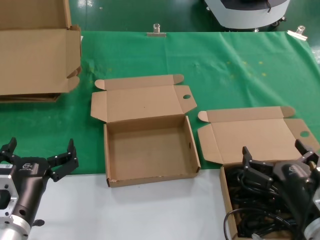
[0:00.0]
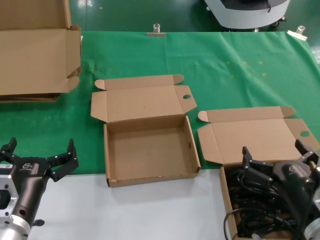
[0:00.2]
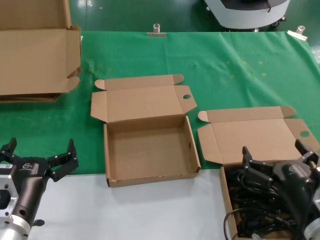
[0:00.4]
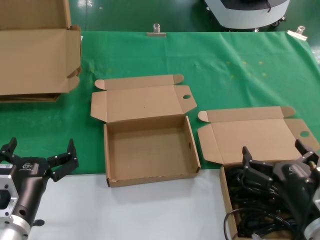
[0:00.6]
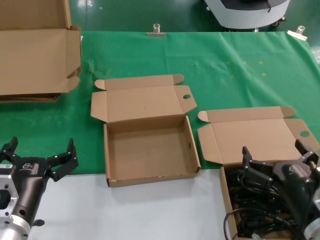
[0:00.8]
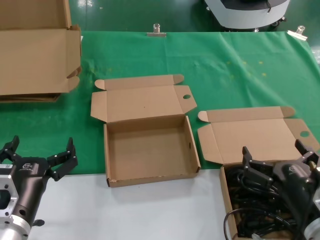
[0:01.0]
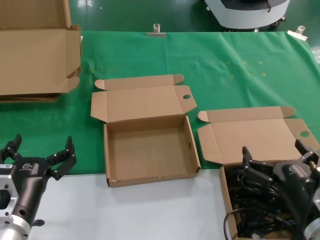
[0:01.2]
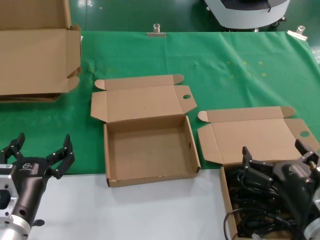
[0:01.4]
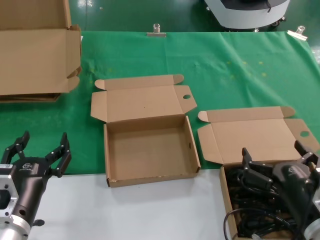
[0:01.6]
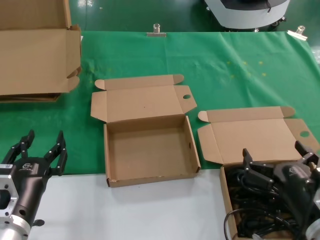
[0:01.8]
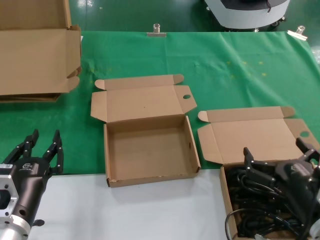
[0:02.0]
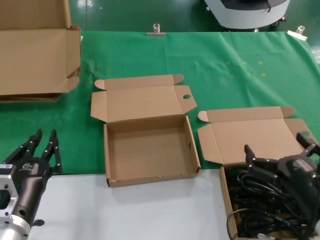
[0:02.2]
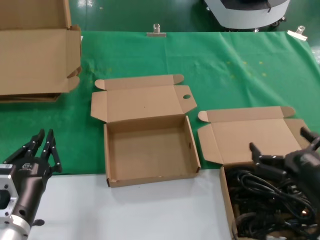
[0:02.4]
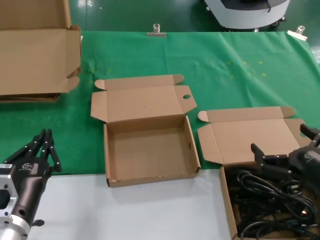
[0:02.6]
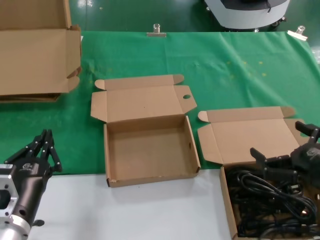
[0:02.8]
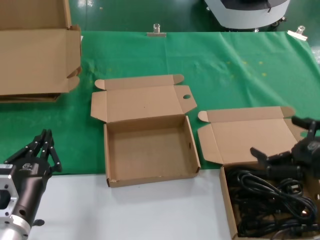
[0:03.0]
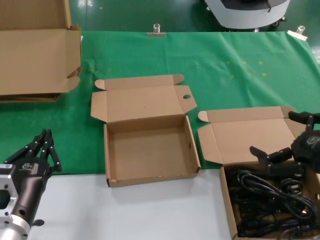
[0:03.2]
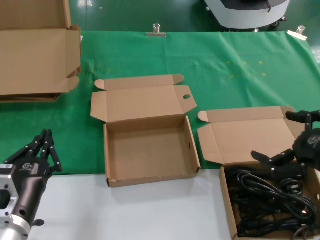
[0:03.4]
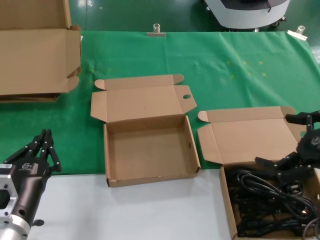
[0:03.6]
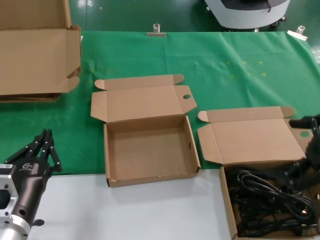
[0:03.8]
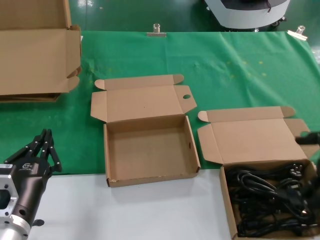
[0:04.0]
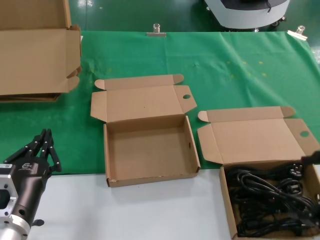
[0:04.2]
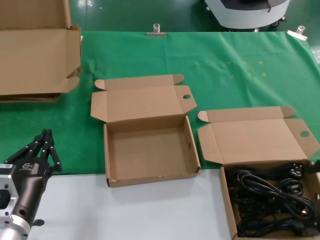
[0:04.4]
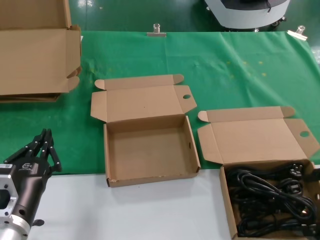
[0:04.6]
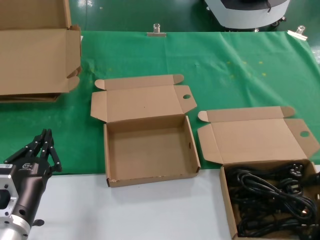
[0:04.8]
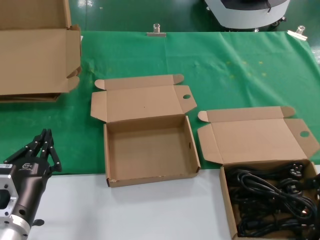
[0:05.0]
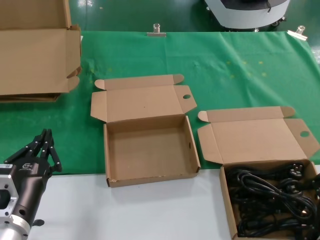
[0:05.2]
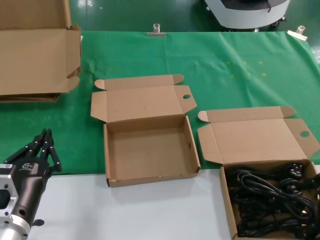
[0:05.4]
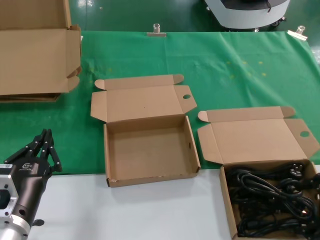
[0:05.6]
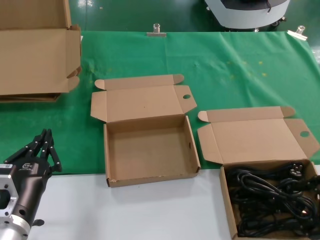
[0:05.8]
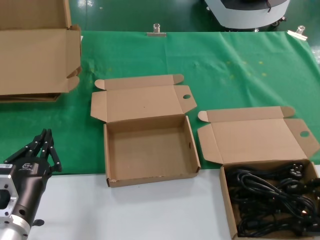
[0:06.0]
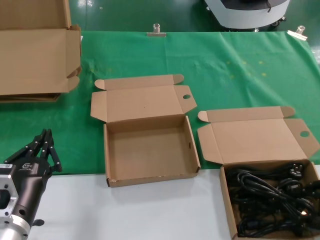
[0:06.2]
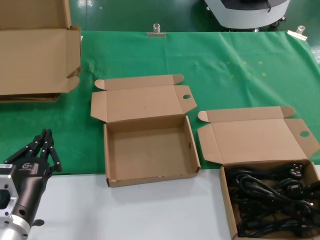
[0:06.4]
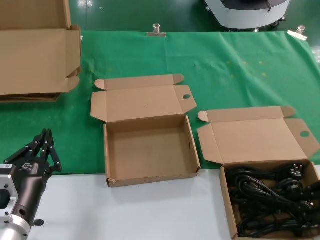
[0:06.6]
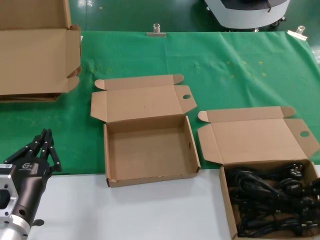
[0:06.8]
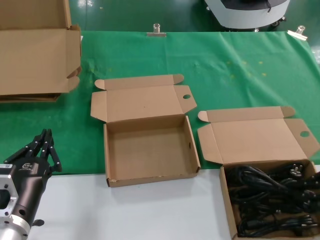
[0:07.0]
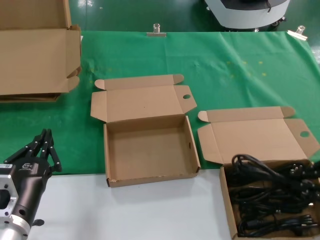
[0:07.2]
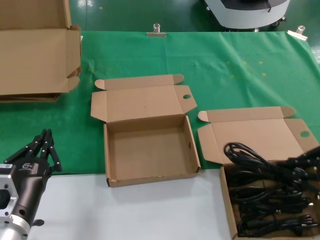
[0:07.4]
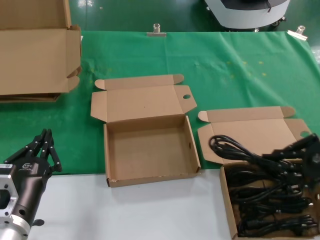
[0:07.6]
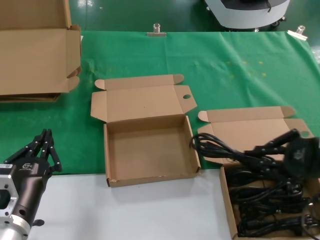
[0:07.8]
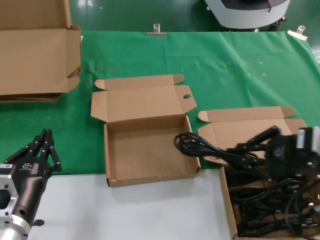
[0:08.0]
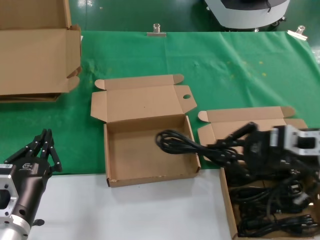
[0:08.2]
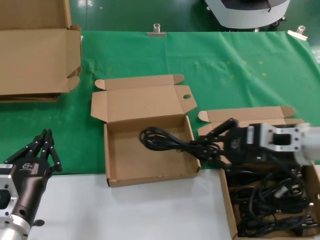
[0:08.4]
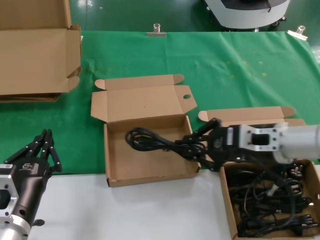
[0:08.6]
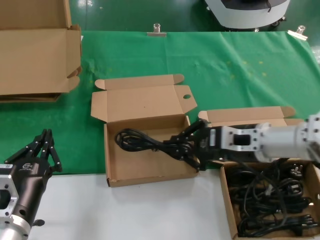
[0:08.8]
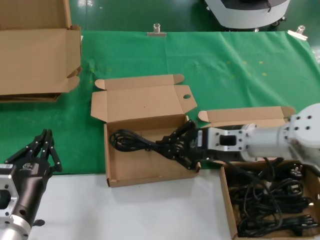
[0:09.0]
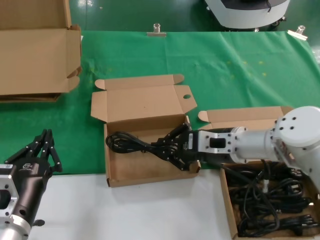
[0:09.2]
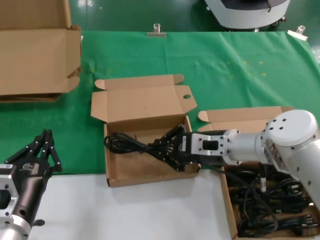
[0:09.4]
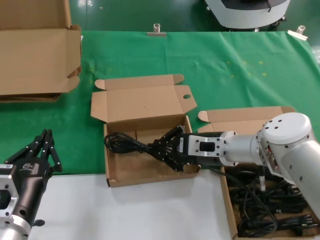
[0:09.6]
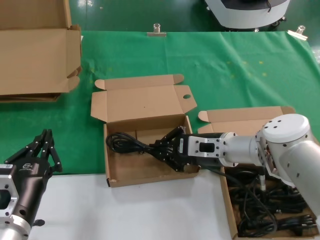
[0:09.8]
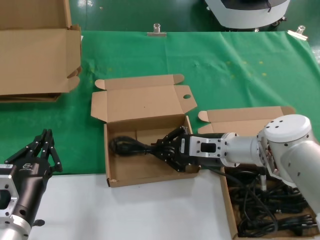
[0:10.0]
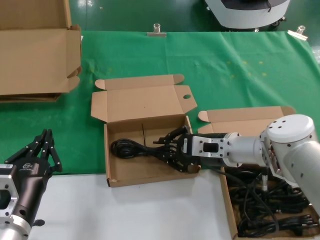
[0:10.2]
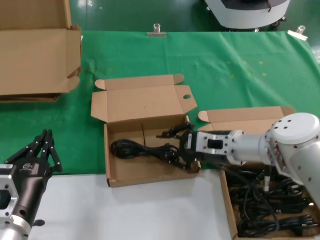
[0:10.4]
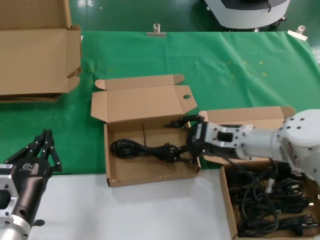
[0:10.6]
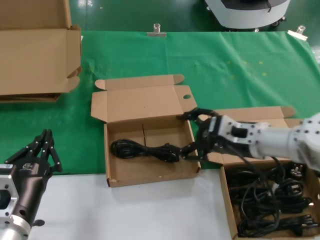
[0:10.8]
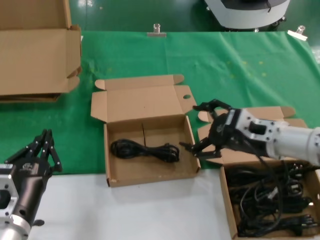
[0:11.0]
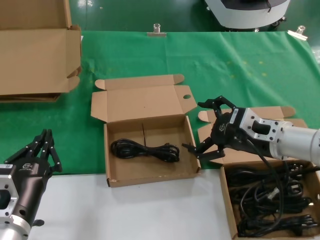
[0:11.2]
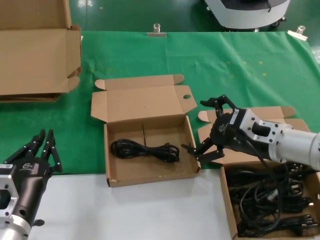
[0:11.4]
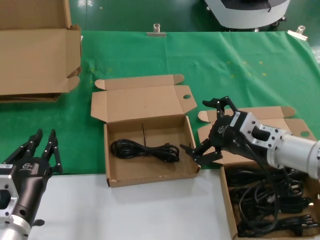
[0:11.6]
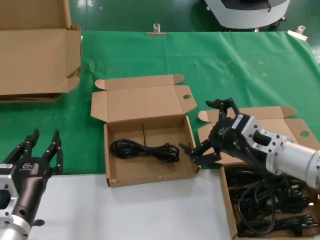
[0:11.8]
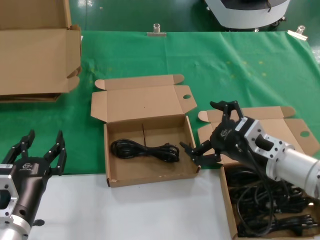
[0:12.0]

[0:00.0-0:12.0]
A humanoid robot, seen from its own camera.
Task of the whole recording: take the parts from the box containing them and put them into an empty box.
Step, 0:00.0 to 0:06.4: Grasp the data cable.
Step, 0:06.8 to 0:10.0: Place the data cable in the another box.
0:00.0 to 0:01.6: The two hands keep their place.
0:01.6 to 0:03.0: The right hand shifts about 15 cm upward and to the right.
0:03.0 to 0:04.4: The right hand heads to the right and upward, covering roughly 10 cm.
0:04.4 to 0:06.0: The right hand travels downward by some 10 cm.
0:06.0 to 0:07.6: The right hand moves upward, roughly 5 cm.
0:07.6 to 0:09.0: The right hand heads to the left and forward, covering roughly 25 cm.
0:09.0 to 0:10.4: The right hand shifts by roughly 5 cm.
0:10.4 to 0:12.0: The right hand is displaced backward and to the right by about 10 cm.

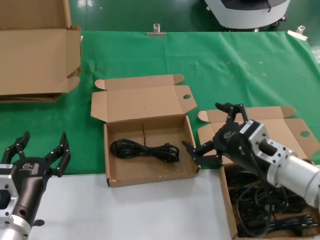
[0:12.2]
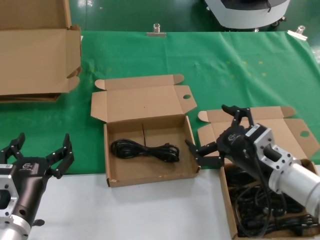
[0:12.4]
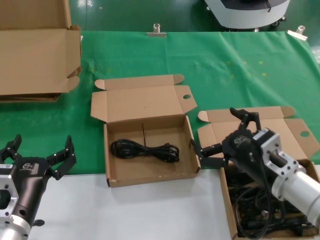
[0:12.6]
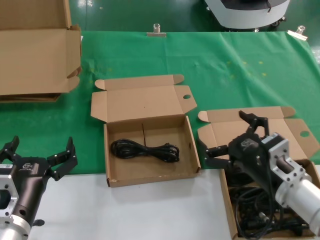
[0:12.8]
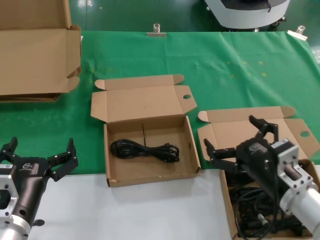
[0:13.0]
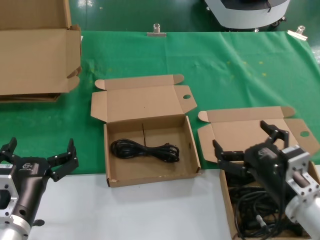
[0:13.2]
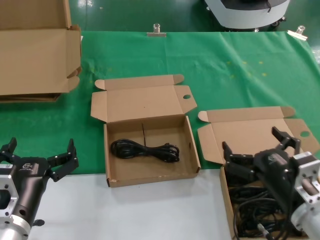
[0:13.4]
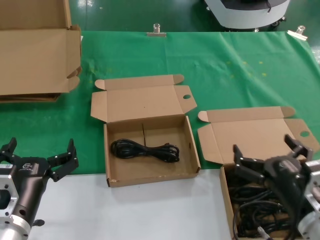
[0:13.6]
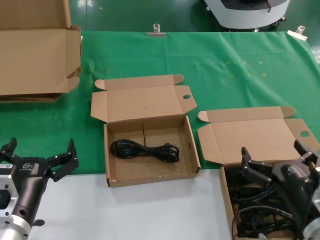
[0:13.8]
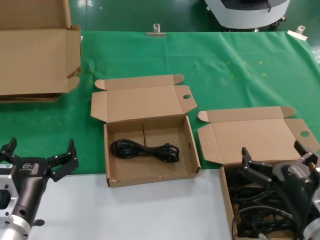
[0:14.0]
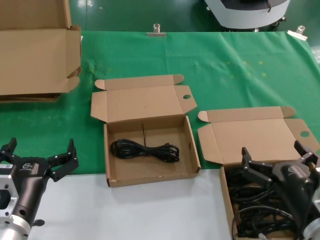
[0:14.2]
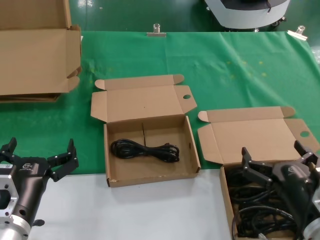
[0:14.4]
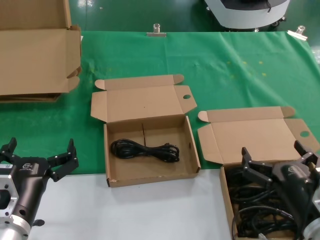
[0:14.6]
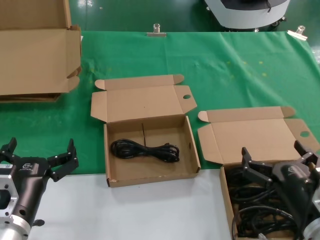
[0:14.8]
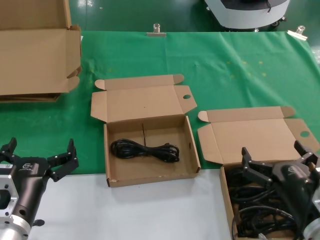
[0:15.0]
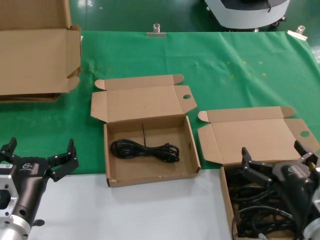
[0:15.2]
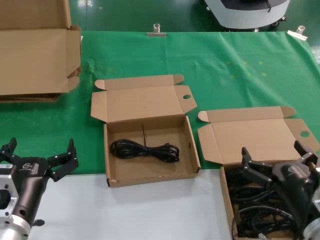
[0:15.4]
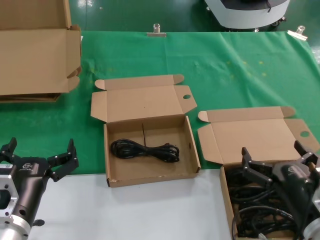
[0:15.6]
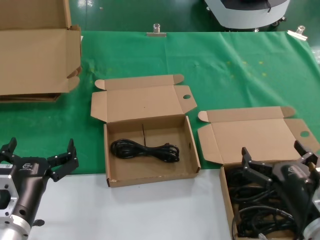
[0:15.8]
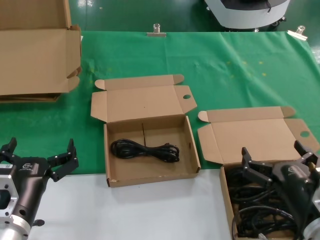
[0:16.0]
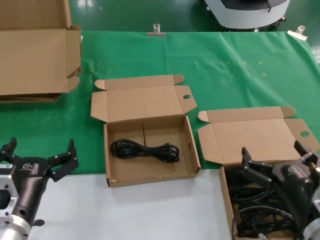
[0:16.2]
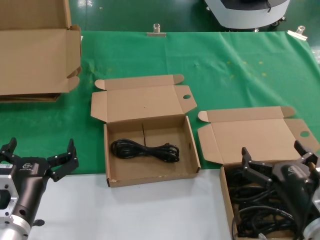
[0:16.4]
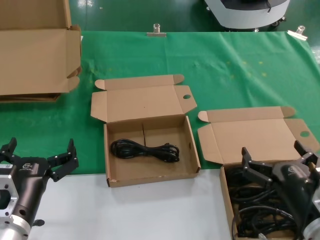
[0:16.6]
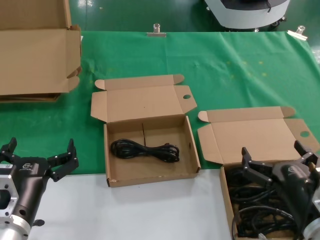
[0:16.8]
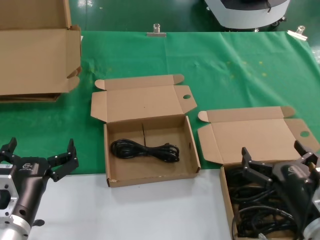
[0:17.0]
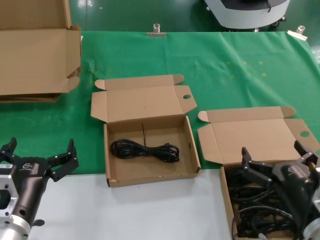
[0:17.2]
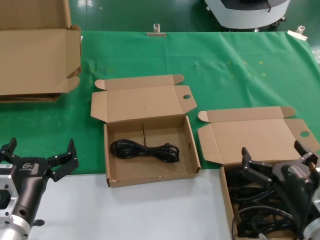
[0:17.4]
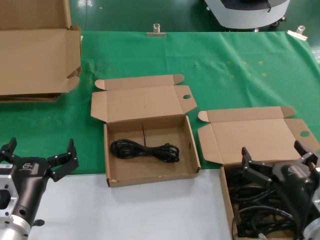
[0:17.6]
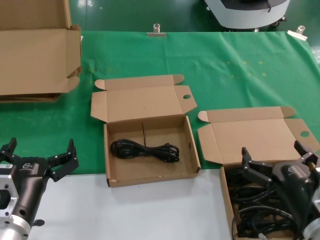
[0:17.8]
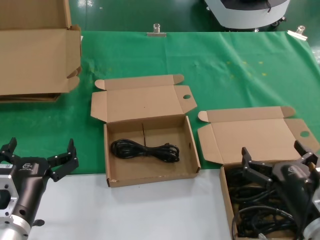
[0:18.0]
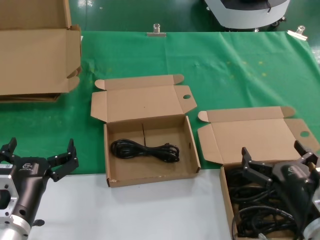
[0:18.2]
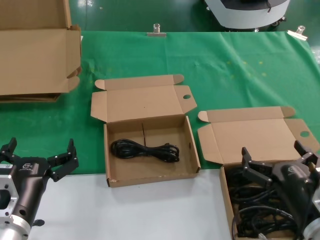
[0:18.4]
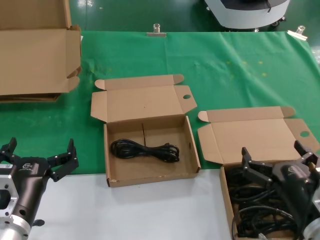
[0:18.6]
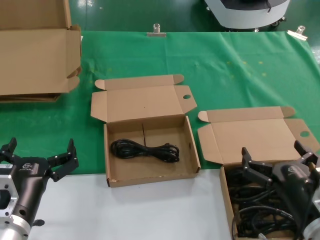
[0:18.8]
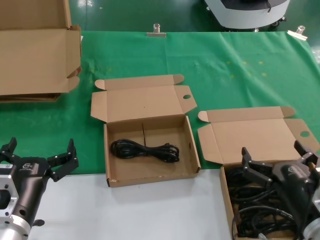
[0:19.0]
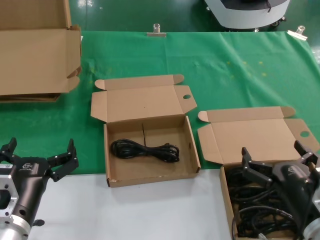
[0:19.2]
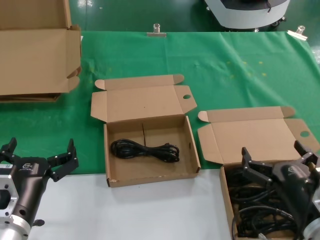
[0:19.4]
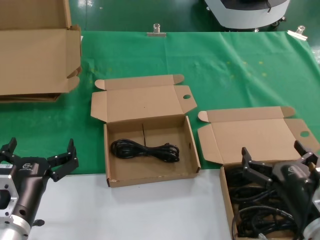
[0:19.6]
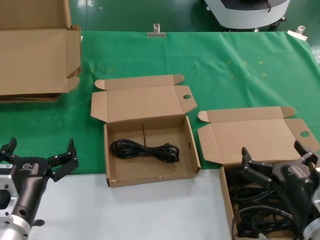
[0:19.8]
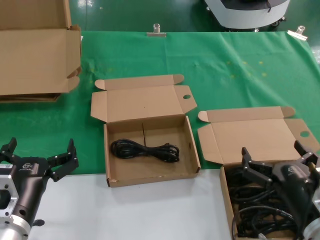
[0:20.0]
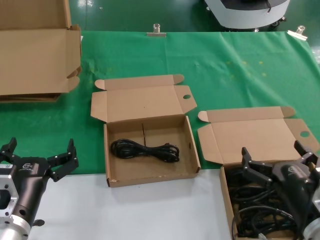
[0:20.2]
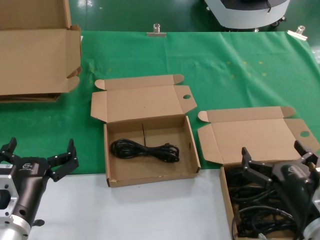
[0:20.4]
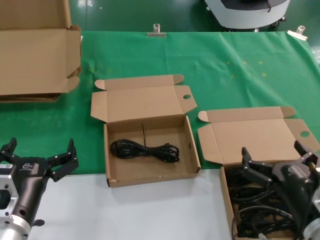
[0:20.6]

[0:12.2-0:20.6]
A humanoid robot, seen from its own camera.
Task of the whole recording: take the parts from the box containing them and put them into an empty box.
0:12.2 to 0:13.6: The right hand shifts about 10 cm backward and downward.
0:13.6 to 0:15.0: The hands make only small movements.
0:15.0 to 0:20.6: The two hands keep their place.

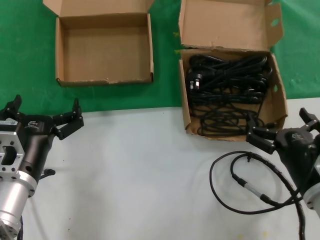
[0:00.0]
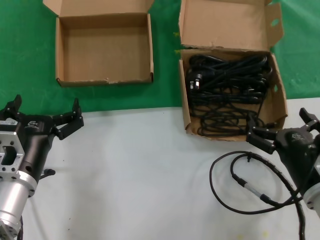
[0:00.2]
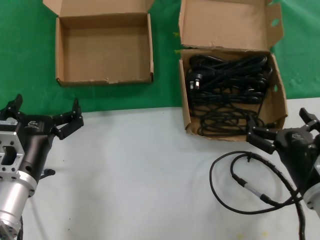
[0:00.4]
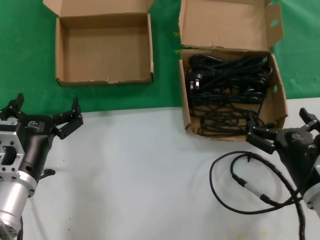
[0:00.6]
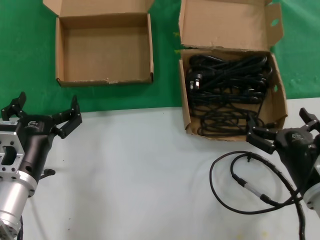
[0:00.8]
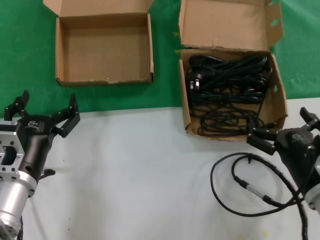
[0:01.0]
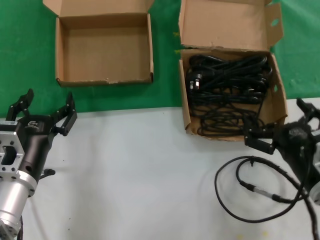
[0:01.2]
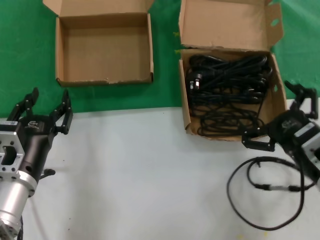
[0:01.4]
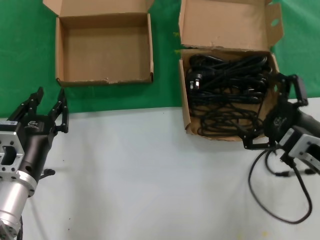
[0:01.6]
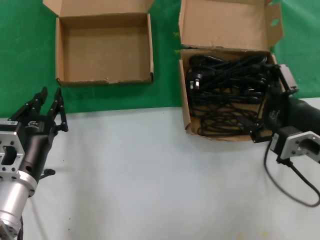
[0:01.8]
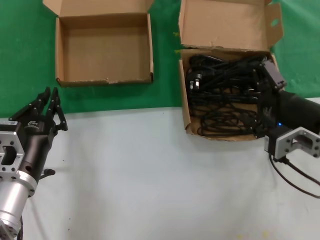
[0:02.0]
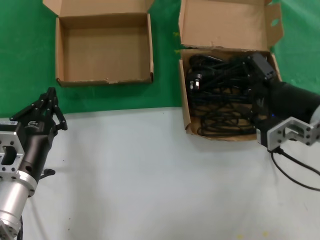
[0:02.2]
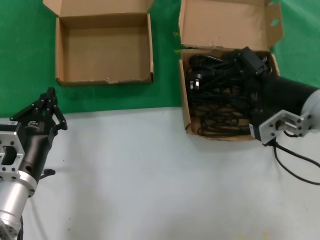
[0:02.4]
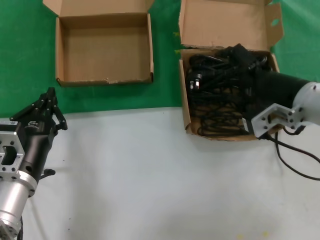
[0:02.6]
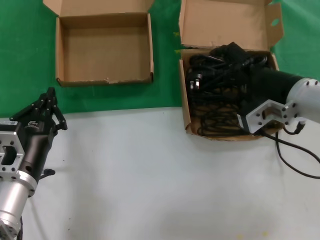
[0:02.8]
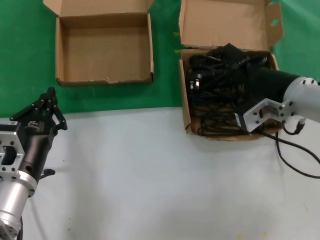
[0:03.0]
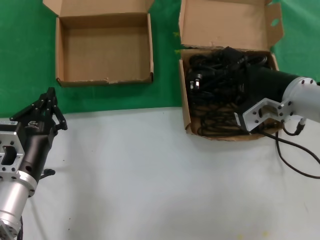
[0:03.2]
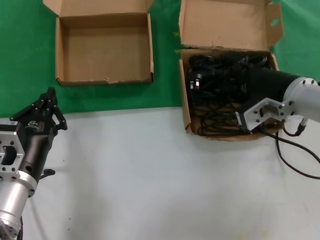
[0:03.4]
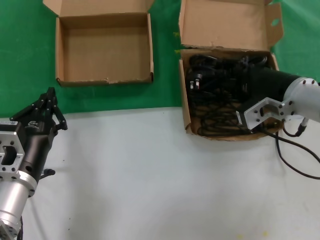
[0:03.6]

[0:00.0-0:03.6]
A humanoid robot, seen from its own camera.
Task of the whole recording: take the parts from the box containing them and put them into an empty box.
0:00.0 to 0:01.8: The right hand heads upward, covering some 10 cm.
0:01.8 to 0:03.6: The right hand moves forward, about 10 cm.
